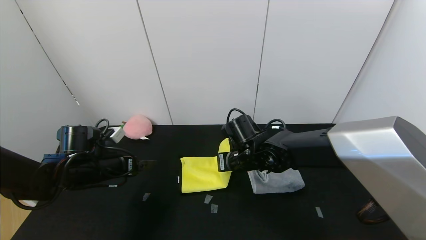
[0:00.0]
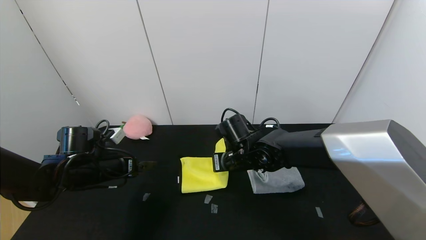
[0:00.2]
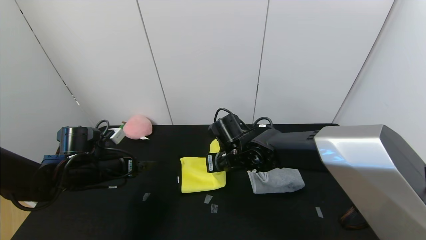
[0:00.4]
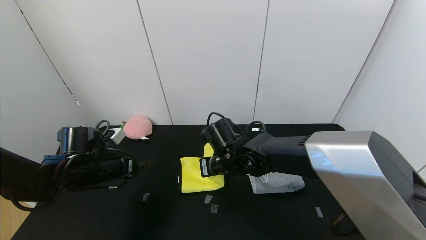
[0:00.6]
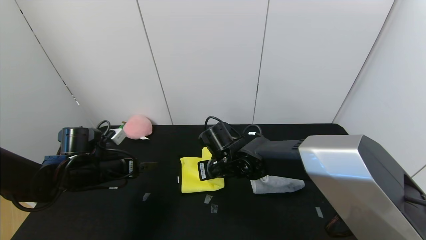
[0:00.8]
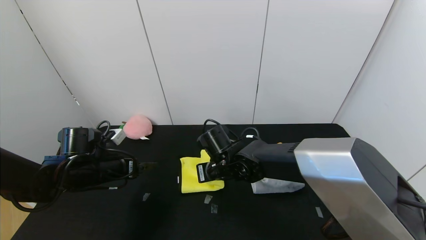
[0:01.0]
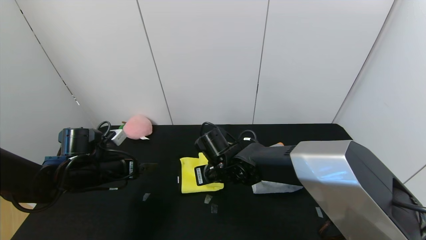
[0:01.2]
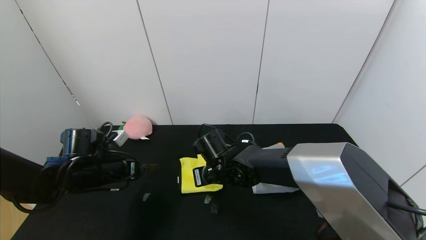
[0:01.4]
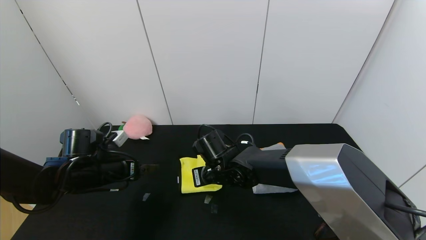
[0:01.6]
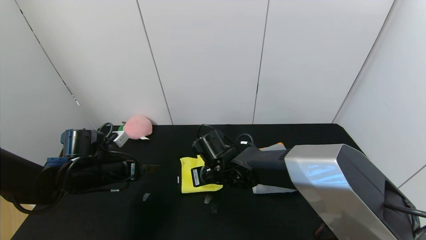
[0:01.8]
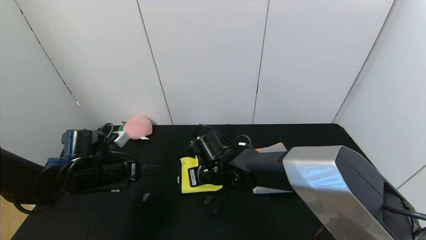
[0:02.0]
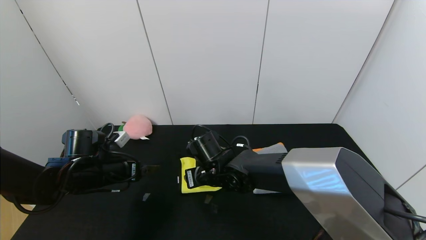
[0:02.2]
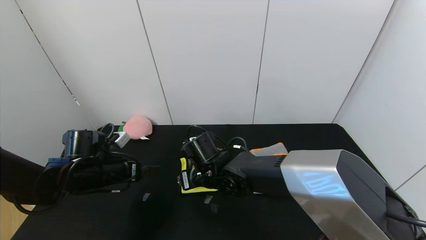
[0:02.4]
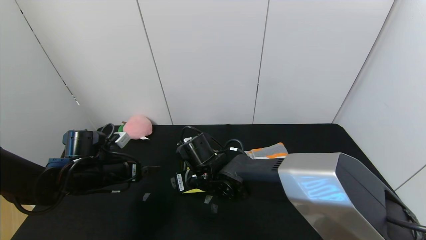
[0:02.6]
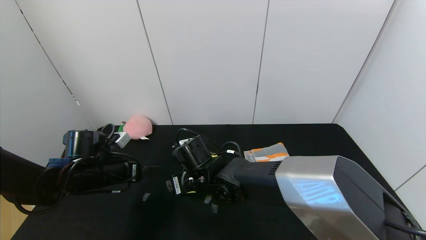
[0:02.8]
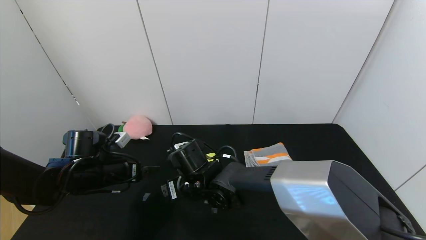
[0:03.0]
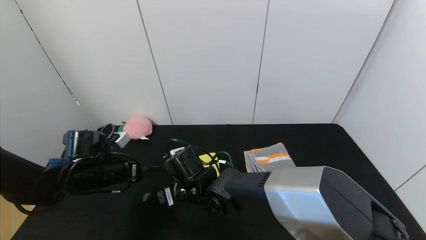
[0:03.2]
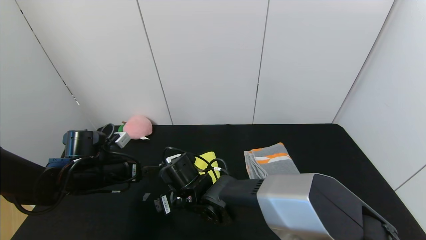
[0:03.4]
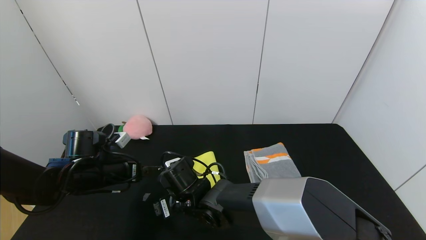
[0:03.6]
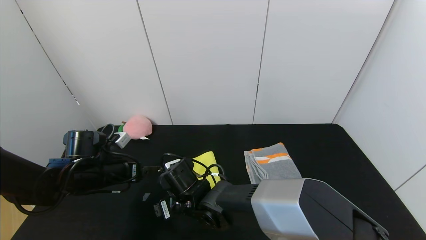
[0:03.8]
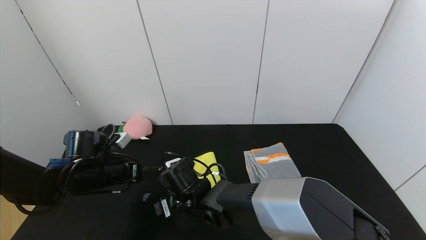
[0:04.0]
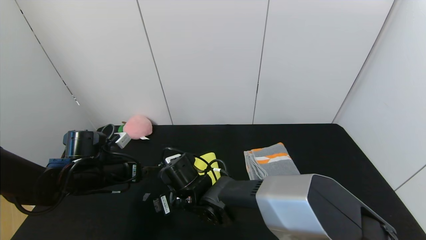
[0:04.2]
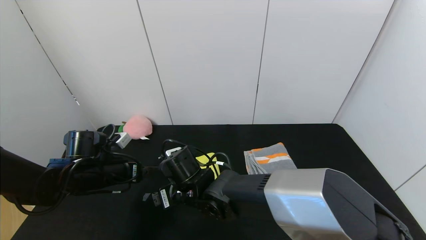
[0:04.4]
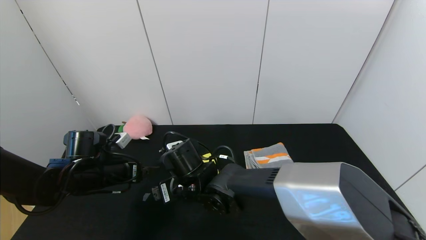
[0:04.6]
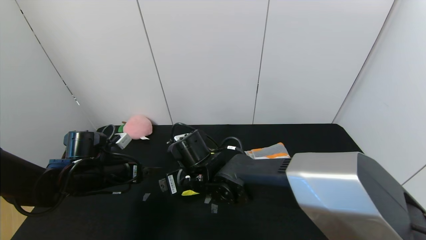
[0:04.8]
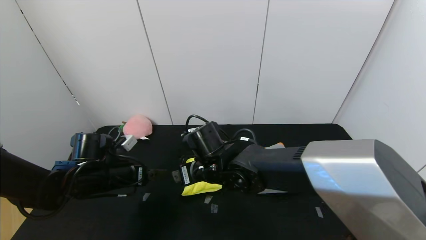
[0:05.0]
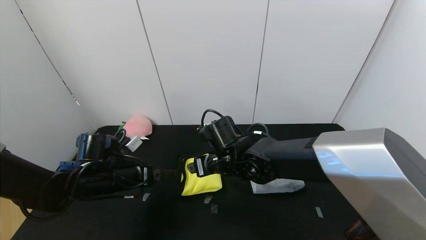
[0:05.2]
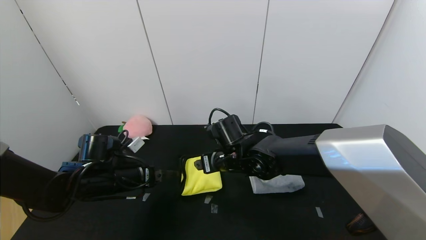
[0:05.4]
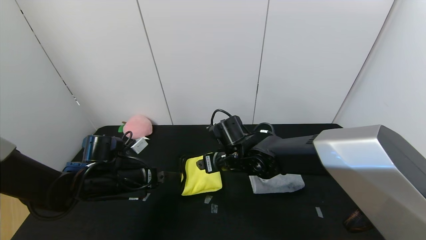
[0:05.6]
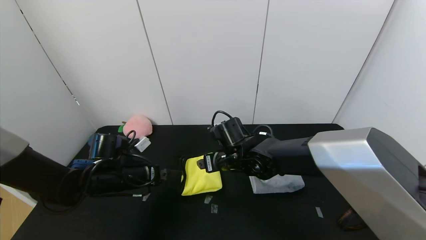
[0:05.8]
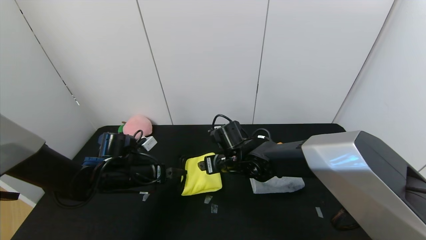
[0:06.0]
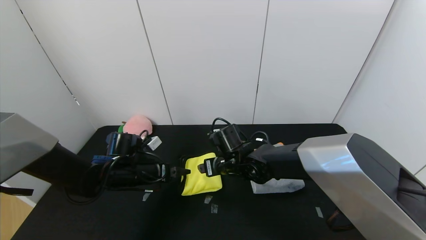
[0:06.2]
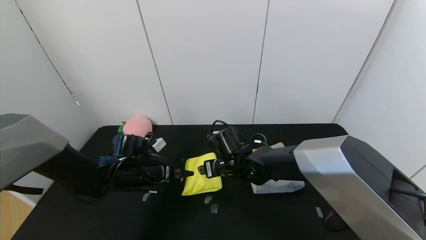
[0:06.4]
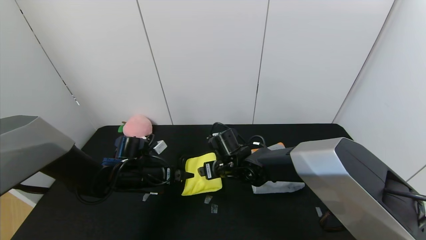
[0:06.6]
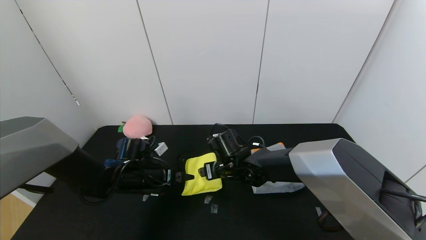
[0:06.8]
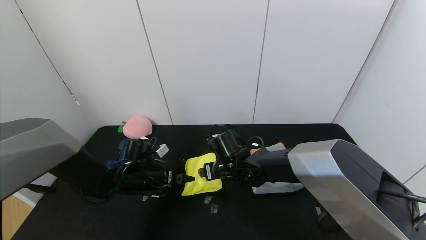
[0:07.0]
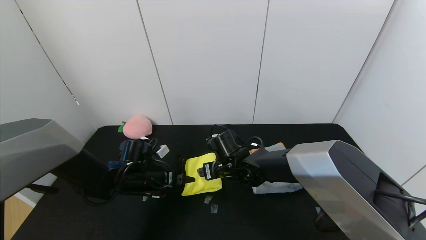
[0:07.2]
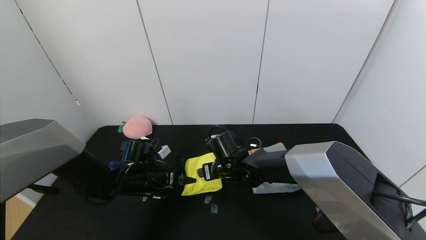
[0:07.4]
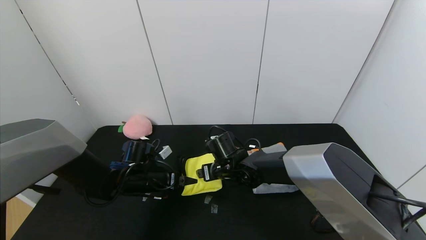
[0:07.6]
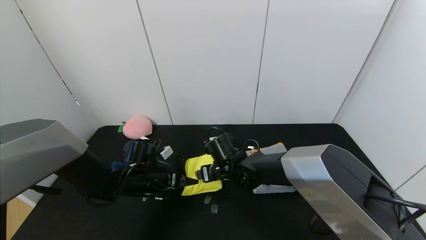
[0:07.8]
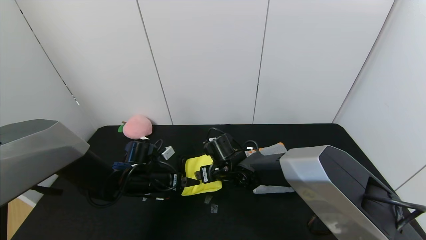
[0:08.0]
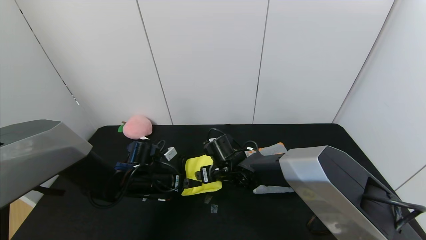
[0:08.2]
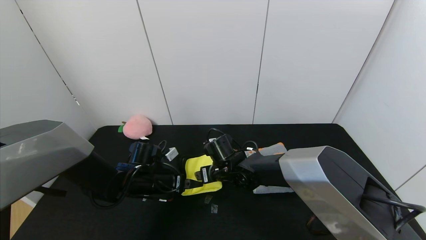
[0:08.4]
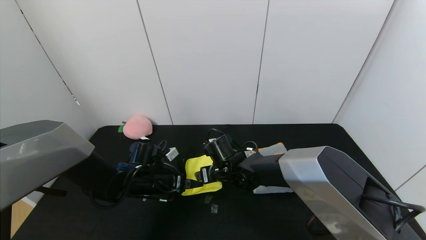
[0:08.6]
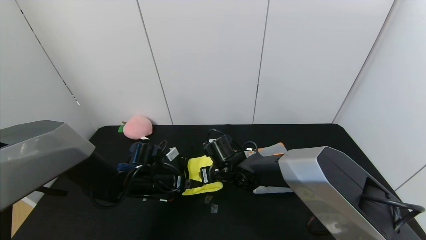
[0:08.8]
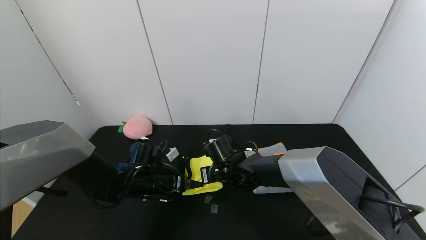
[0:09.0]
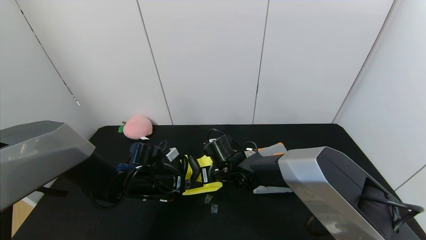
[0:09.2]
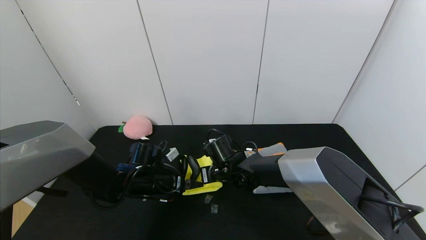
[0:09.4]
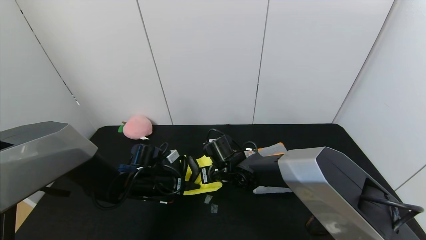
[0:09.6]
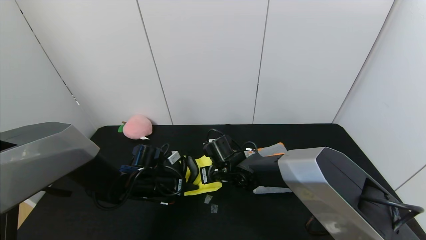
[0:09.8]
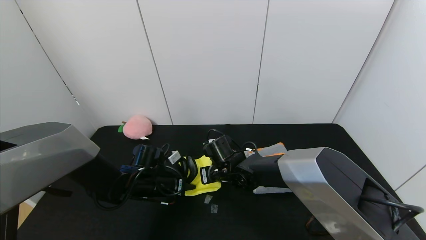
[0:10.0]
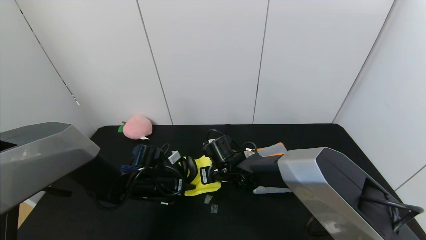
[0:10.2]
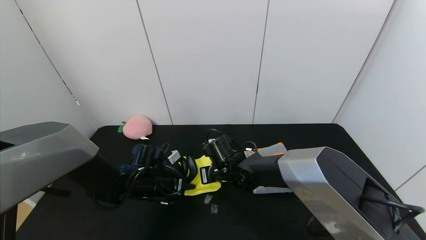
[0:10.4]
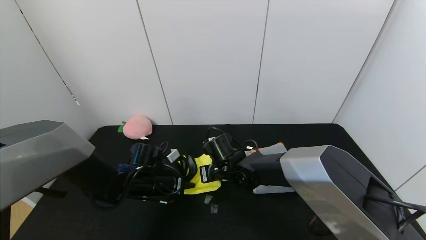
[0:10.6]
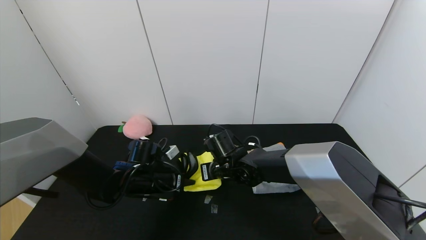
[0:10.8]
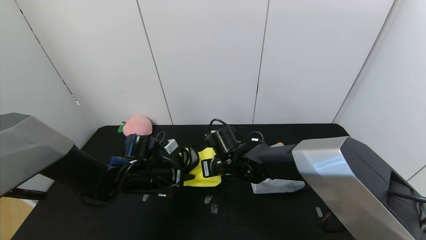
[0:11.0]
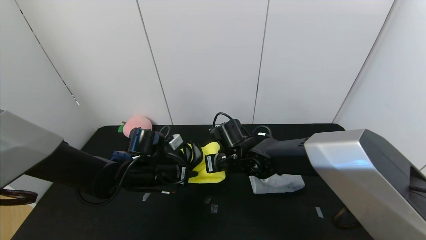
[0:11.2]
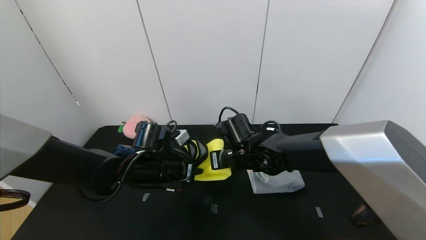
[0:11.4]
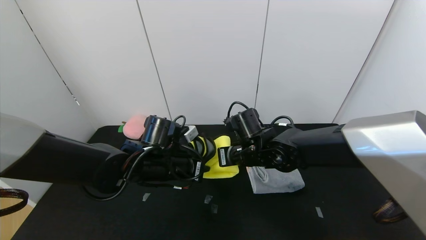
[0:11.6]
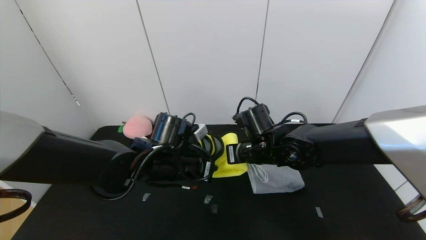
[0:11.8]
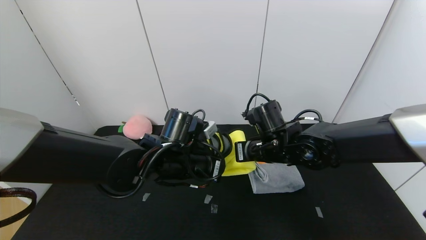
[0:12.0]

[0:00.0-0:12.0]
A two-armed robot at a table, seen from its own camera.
Task of the whole recording: Use the gripper to fold the yellow towel and grey towel in half twice,then put the yellow towel on the grey towel.
Step, 0:00.0 to 0:04.6: Fold the yellow towel from right to left with right gripper.
0:00.0 to 0:01.6: The right gripper moves to the left, some 5 cm.
0:01.6 to 0:03.0: The right gripper ends up roughly 5 cm from where it was, and opens up.
0:03.0 to 0:04.4: The grippers make only small movements.
0:04.4 to 0:06.0: The left gripper changes place by about 5 cm; the right gripper is displaced to the right and forward by roughly 10 cm.
0:06.0 to 0:07.6: There are only small adjustments of the grippers.
0:07.6 to 0:09.0: The right gripper closes its fingers.
0:09.0 to 0:10.4: The left gripper closes. Meanwhile the right gripper closes its fingers.
0:10.4 to 0:12.0: The right gripper goes about 15 cm to the right and upward; the left gripper shifts about 15 cm upward, to the right and backward.

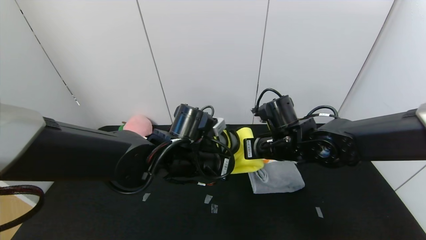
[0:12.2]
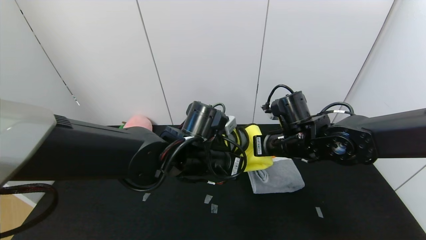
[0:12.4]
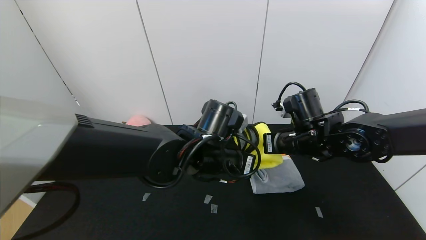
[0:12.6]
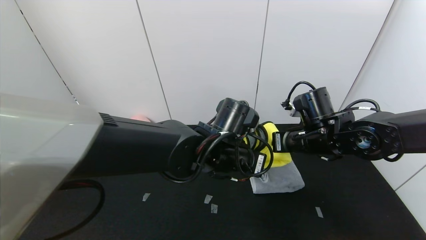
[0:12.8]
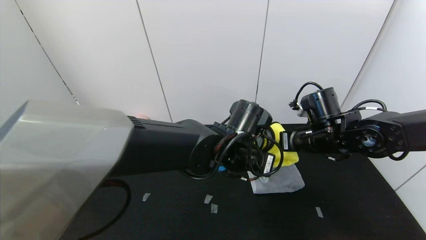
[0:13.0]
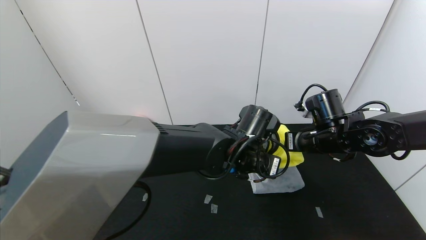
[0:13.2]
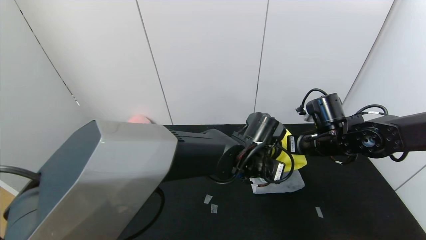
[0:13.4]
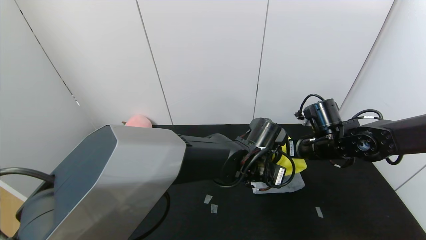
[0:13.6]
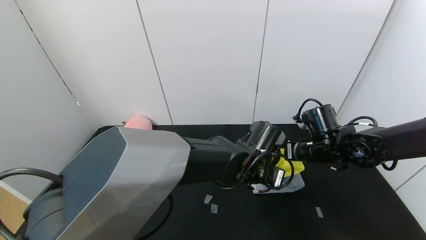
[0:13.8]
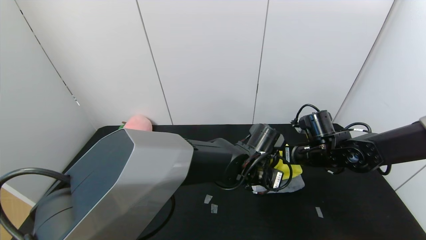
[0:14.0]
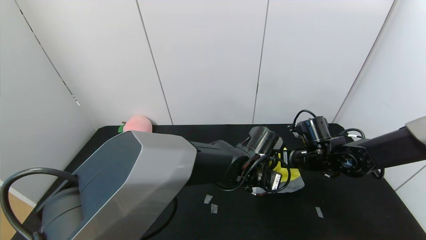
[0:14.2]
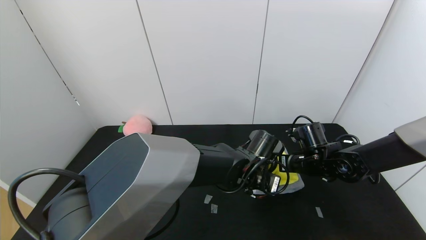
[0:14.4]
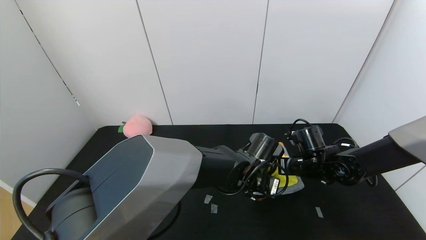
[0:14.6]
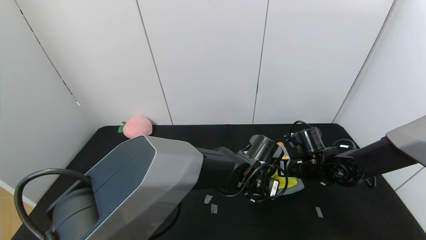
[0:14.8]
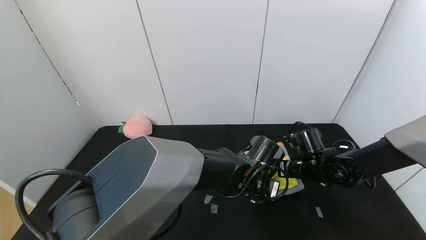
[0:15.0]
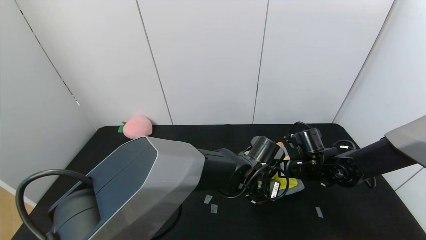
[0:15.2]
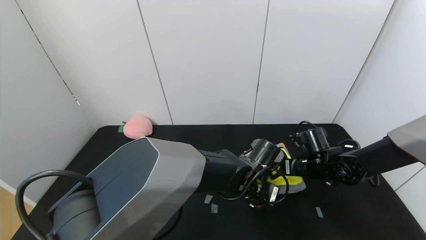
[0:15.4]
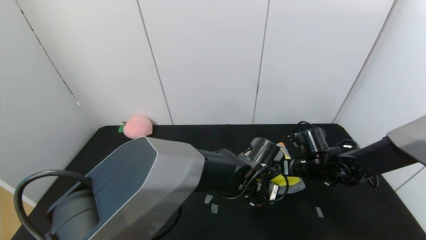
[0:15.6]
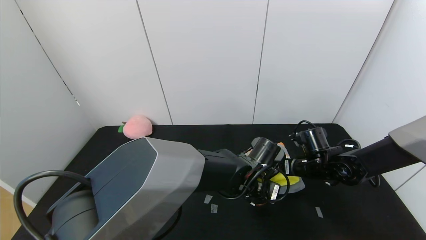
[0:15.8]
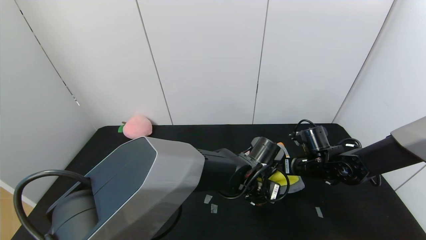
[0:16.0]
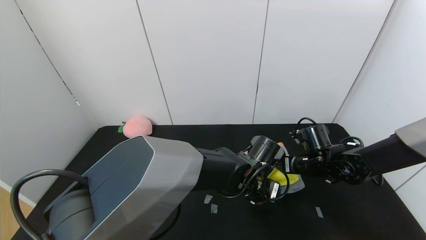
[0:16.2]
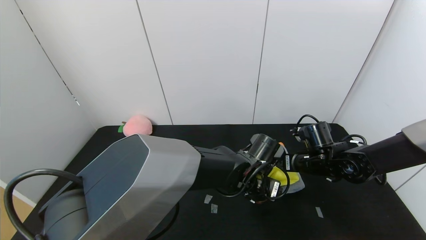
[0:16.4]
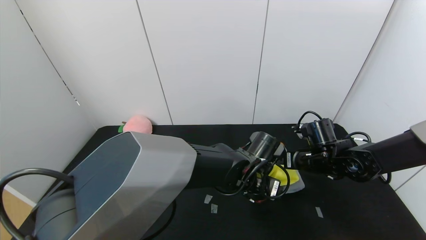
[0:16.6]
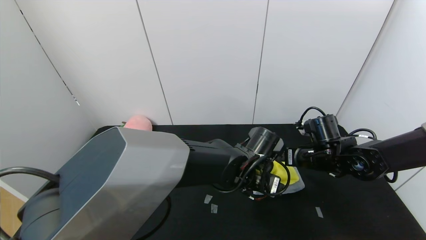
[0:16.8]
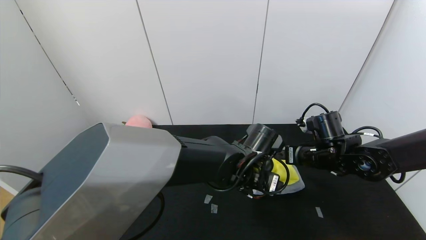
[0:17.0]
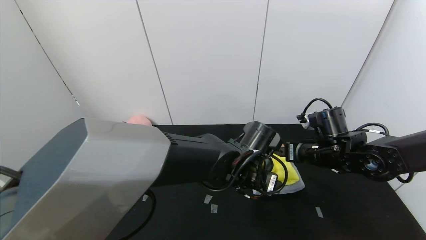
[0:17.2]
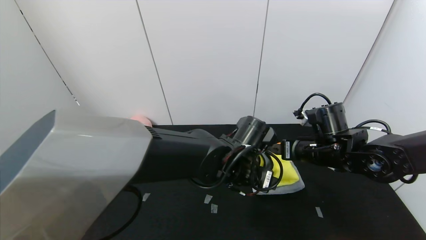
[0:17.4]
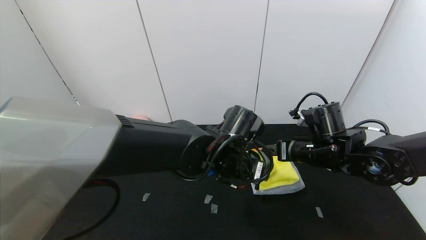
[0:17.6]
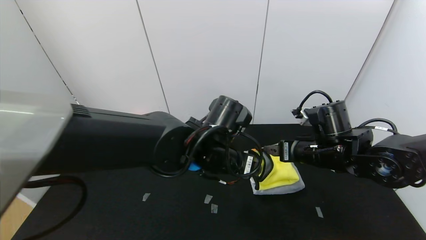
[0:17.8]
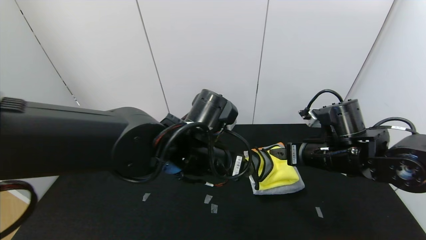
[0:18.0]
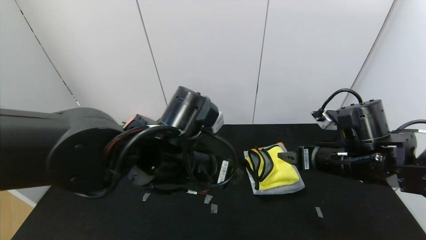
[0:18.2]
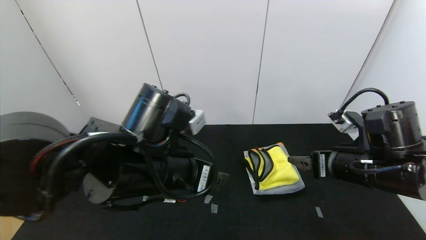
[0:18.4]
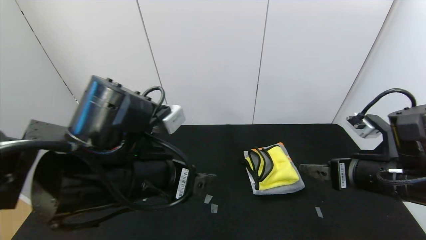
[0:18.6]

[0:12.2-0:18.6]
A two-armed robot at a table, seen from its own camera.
Task of the whole recording: Use the gripper to fold the yellow towel and grey towel in half twice,then put the yellow towel on the grey towel.
Step, 0:12.2 to 0:16.6: Place the yellow towel on the gray towel with the left gripper.
0:12.2 to 0:13.8: The two grippers go some 10 cm to the right.
0:13.8 to 0:15.4: The right gripper heads downward, covering some 5 cm.
0:15.4 to 0:17.0: The right gripper travels upward by roughly 5 cm, and opens up. Meanwhile the left gripper opens up.
0:17.0 to 0:18.6: The left gripper shifts approximately 25 cm to the left, backward and upward, while the right gripper travels backward and upward by roughly 15 cm.
